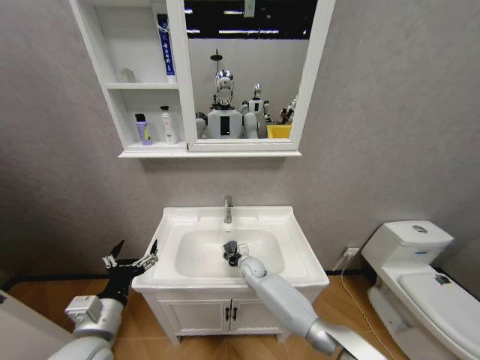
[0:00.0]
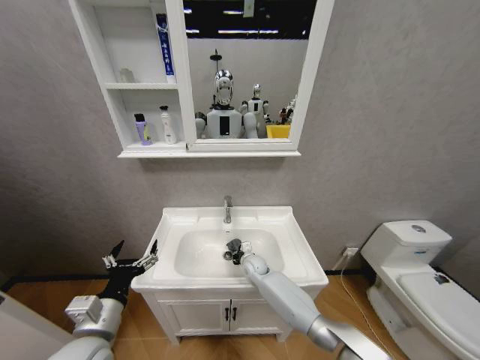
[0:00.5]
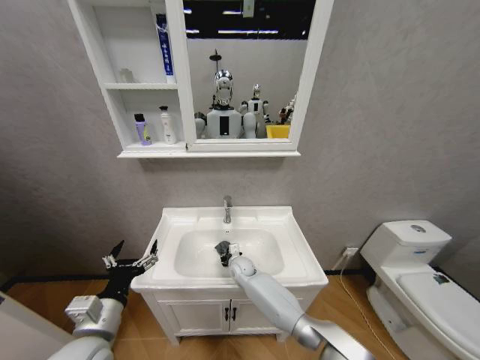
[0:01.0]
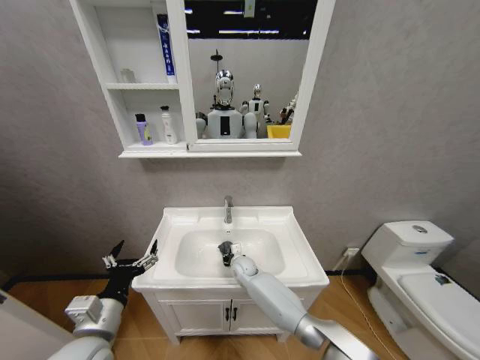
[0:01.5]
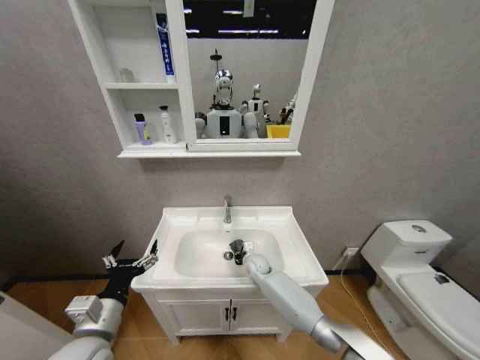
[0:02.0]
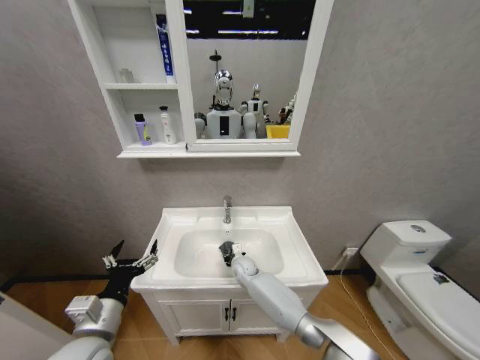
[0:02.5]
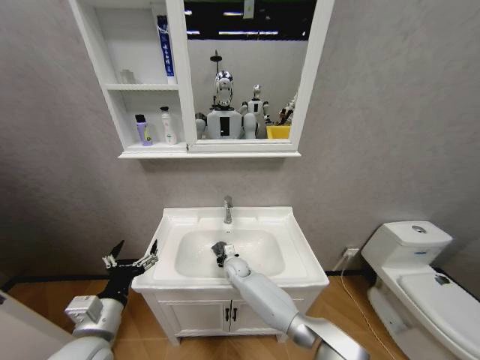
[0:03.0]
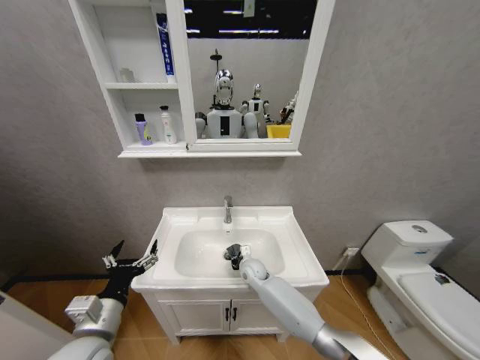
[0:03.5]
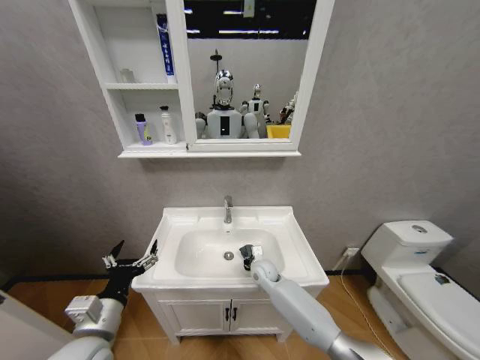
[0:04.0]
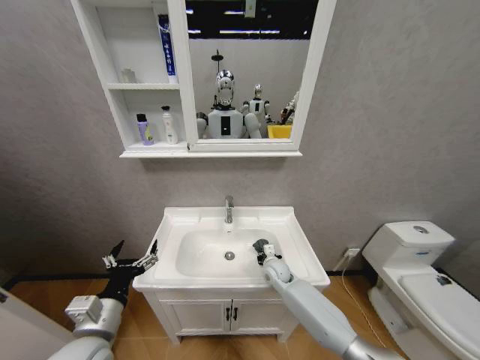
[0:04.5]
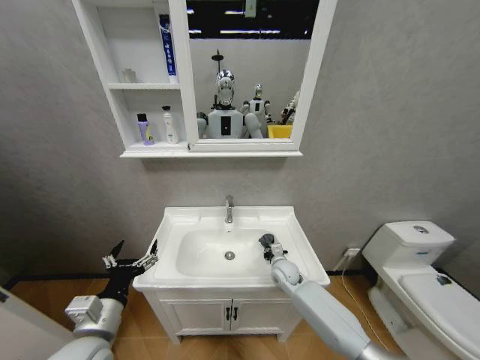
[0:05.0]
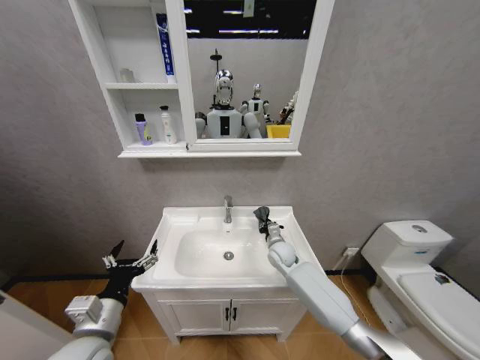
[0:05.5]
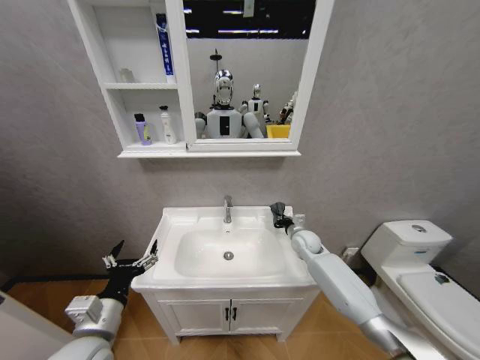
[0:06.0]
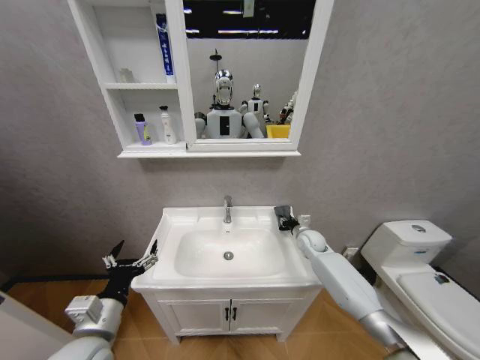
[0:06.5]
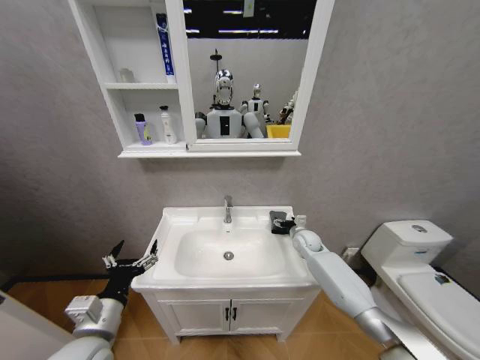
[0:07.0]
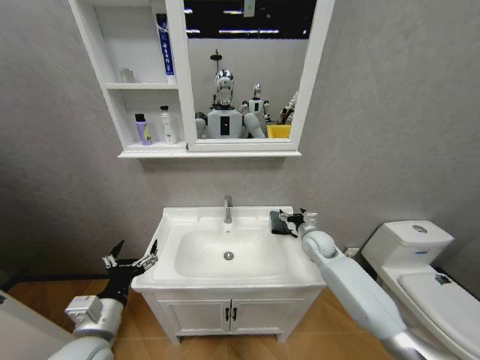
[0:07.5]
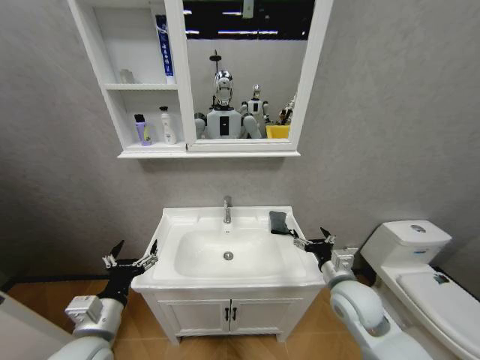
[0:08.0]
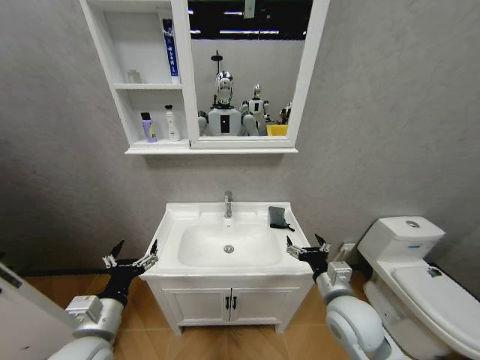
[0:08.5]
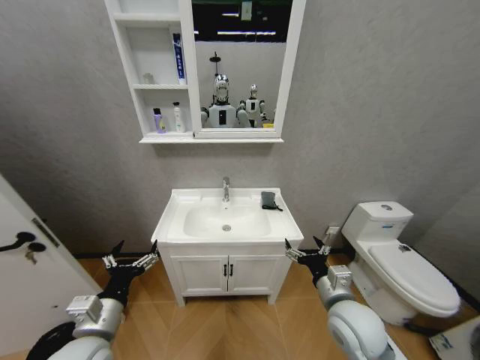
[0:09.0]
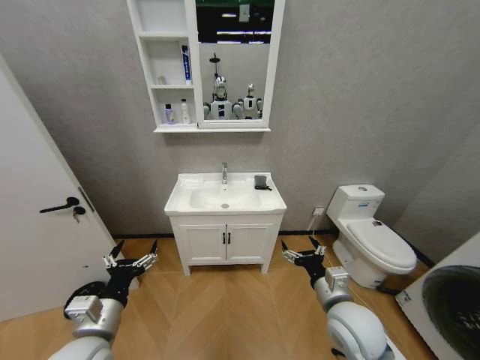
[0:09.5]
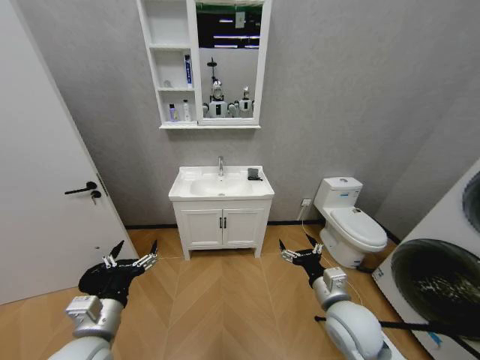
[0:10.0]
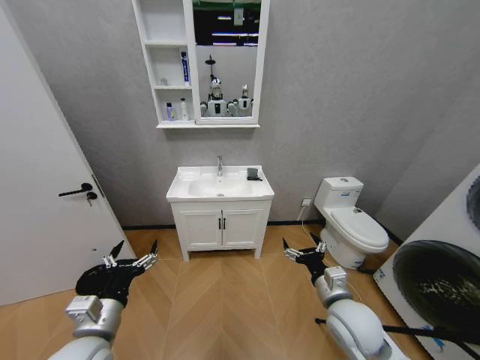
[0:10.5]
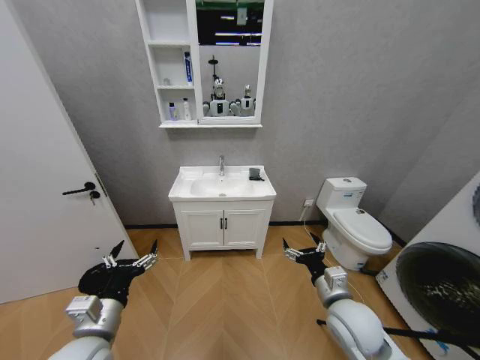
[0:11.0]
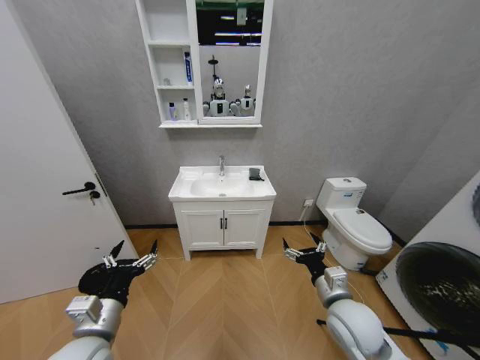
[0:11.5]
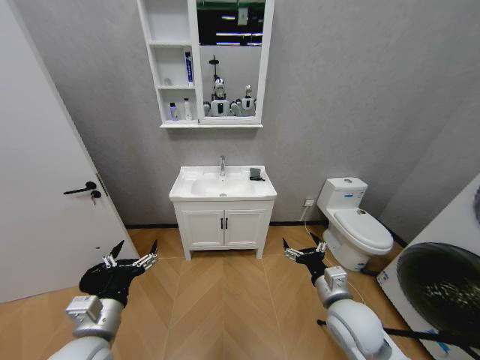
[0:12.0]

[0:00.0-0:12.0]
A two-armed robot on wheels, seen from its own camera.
Task of the whole recording: Move facial cleanser and shampoo from washbasin to cabinet, then wipe washbasin with towel.
0:00.0 to 0:02.0: The grippers make only small movements.
0:02.0 to 0:04.0: The right gripper travels to the left and back again, some 10 cm each way.
0:04.0 to 0:06.0: The right gripper is displaced to the right, upward and forward by approximately 20 cm.
0:06.0 to 0:08.0: The right gripper goes roughly 20 cm backward, and opens up.
0:08.0 to 0:10.0: The right gripper ends up some 5 cm from where it was.
0:10.0 to 0:12.0: Neither gripper changes place.

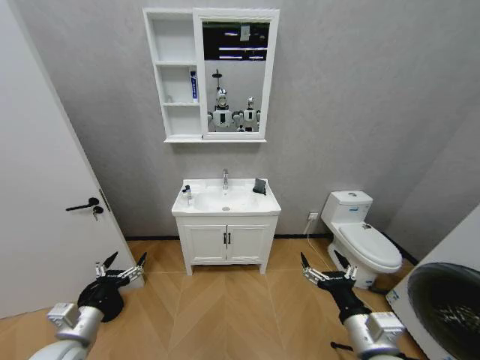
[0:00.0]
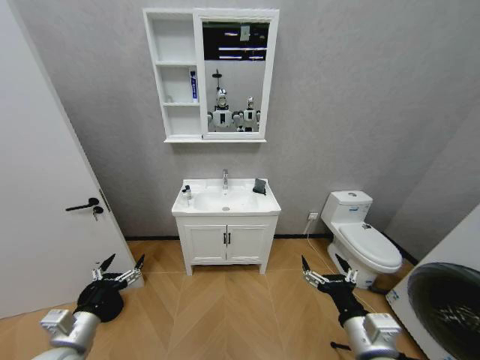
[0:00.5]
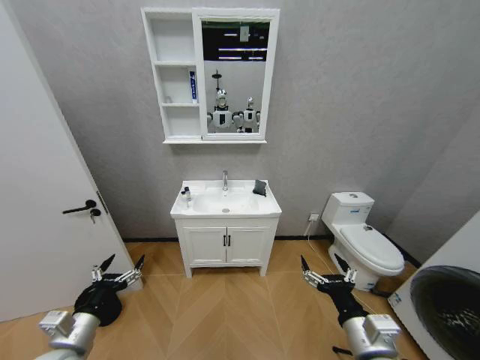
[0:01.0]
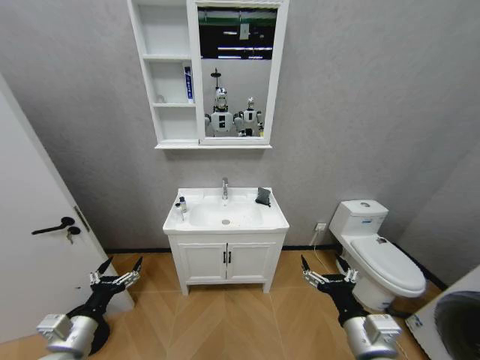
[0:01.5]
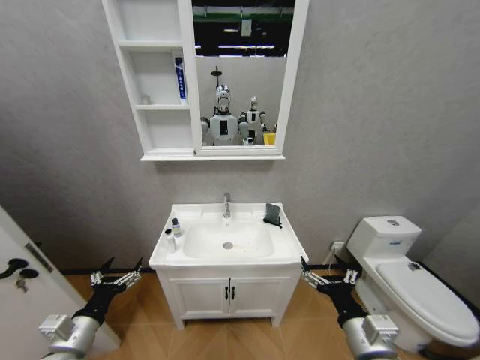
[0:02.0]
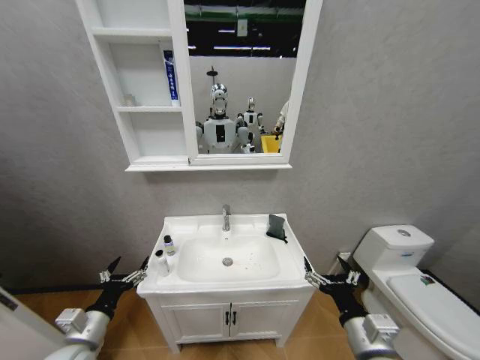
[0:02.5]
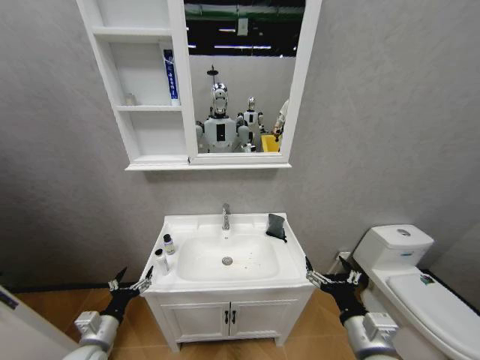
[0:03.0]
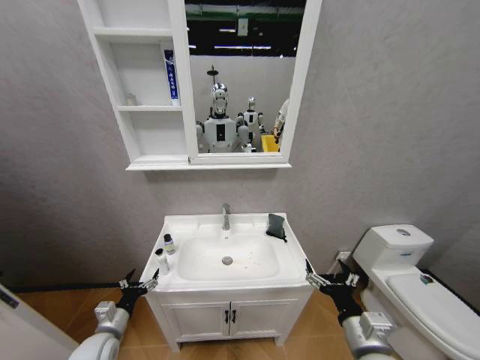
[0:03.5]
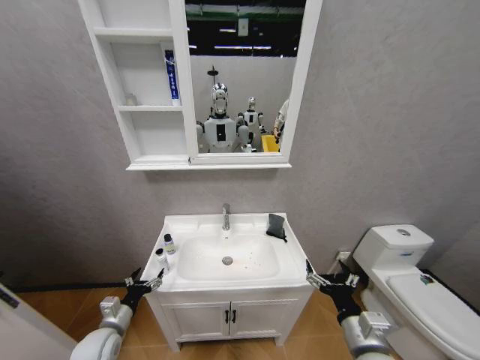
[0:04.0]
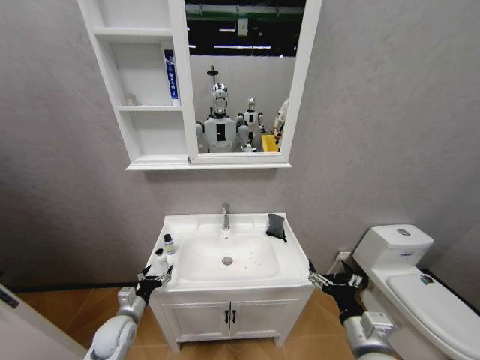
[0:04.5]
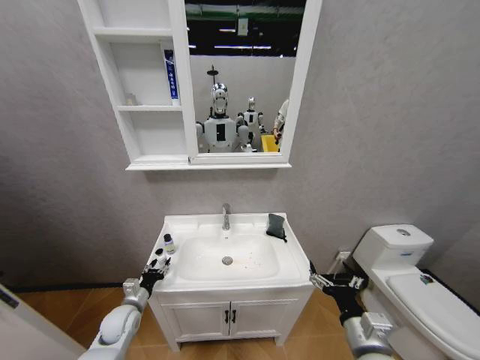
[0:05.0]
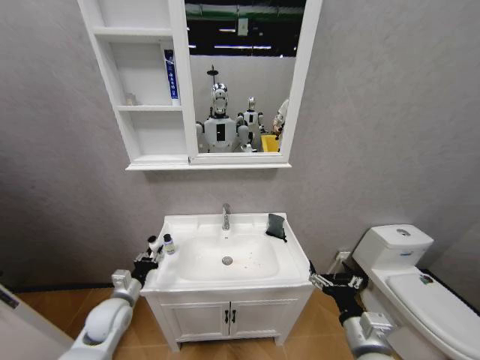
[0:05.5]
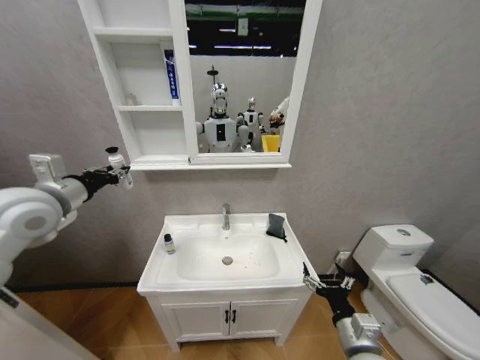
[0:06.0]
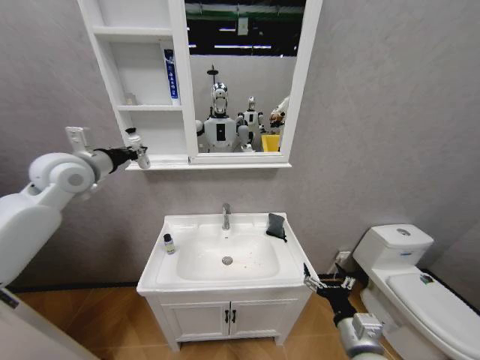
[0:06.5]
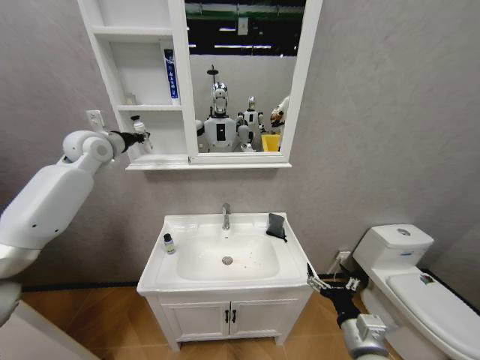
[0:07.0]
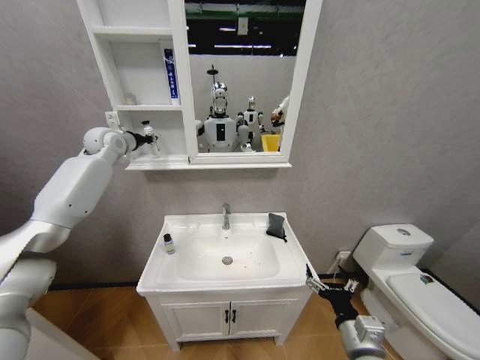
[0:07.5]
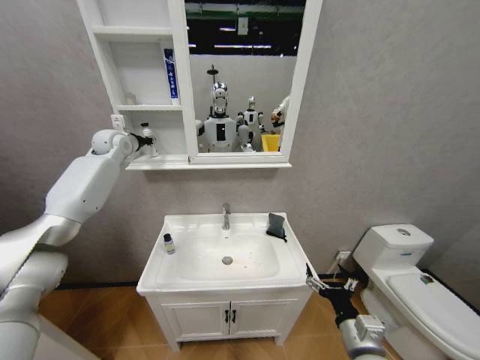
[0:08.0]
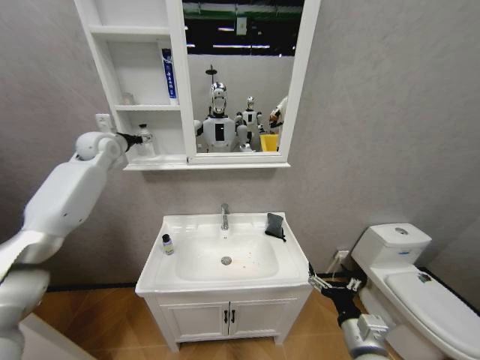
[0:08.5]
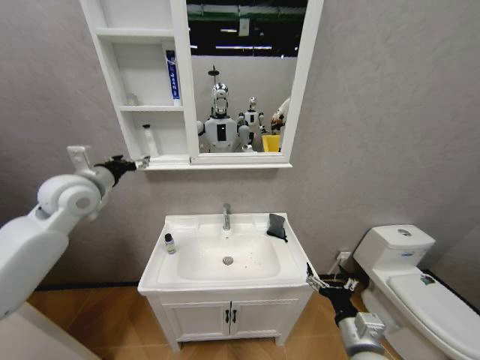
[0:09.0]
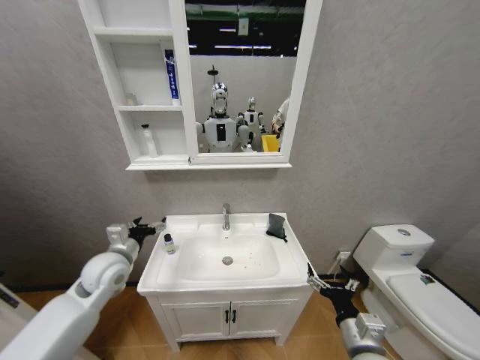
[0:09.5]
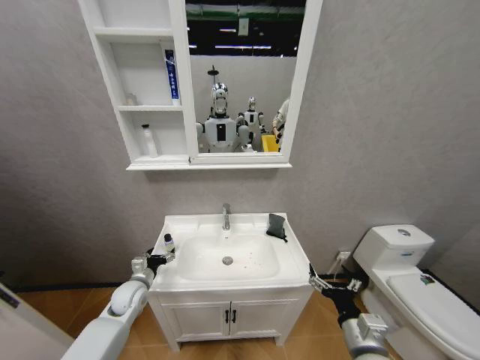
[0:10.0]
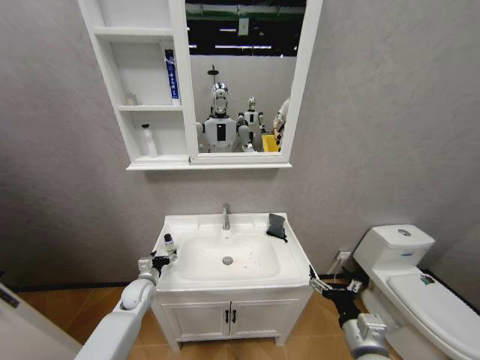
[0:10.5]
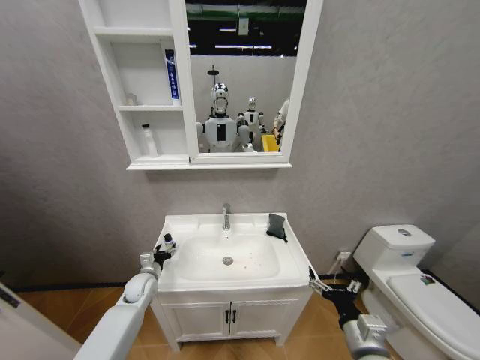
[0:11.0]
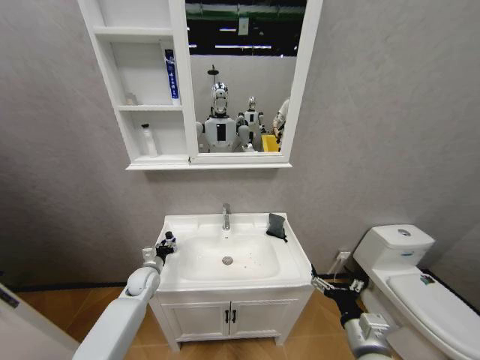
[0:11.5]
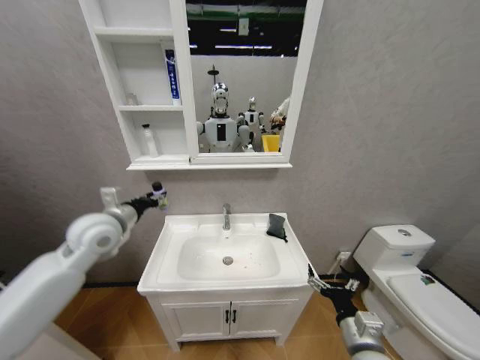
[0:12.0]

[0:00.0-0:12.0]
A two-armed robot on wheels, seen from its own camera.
Task of the whole recording: Move facial cleanser and shampoo from washbasin to cabinet, then wipe washbasin with towel.
0:02.0 to 0:04.0: The left gripper goes about 10 cm downward and forward.
0:04.0 to 0:06.0: The left gripper is displaced upward by roughly 35 cm, and closes up.
0:06.0 to 0:08.0: The left gripper heads forward, covering some 30 cm.
0:08.0 to 0:10.0: The left gripper goes approximately 50 cm downward and backward, and opens up.
0:10.0 to 0:12.0: The left gripper shifts approximately 25 cm upward, and closes.

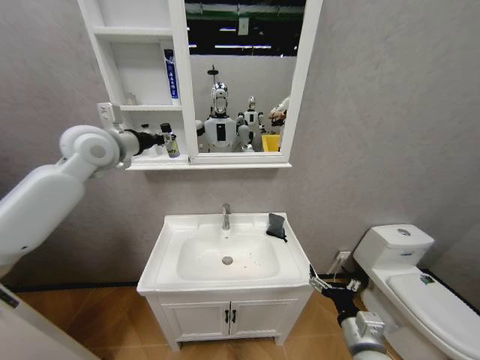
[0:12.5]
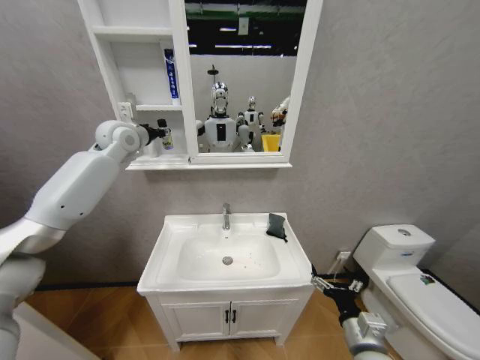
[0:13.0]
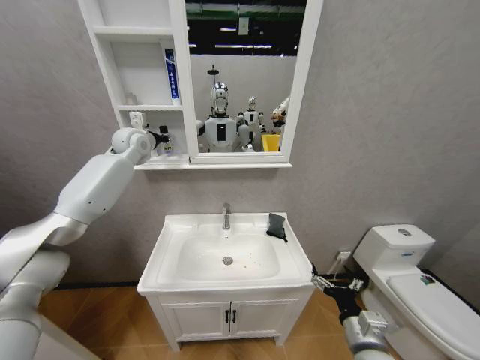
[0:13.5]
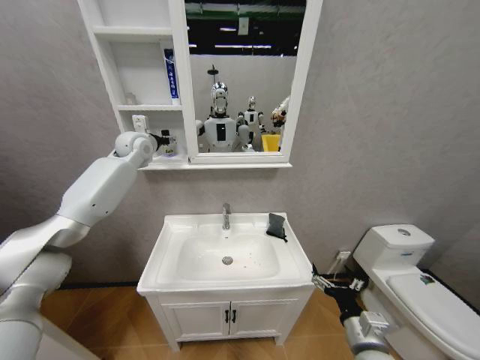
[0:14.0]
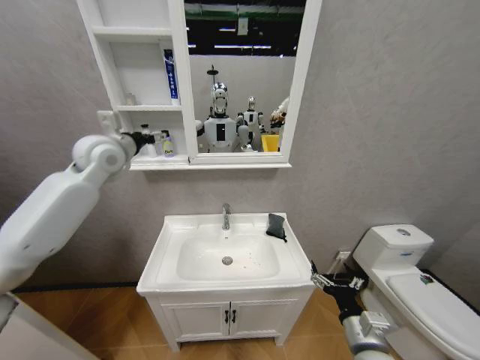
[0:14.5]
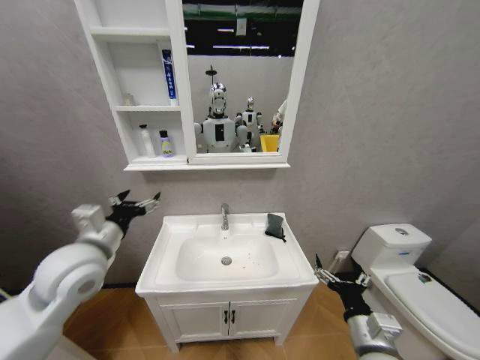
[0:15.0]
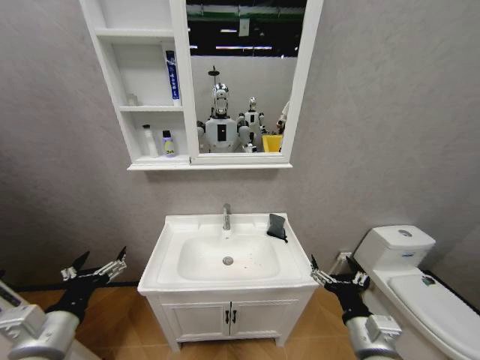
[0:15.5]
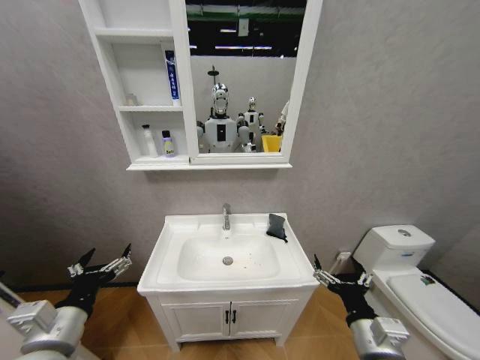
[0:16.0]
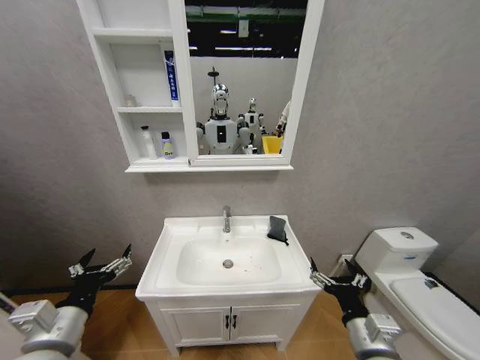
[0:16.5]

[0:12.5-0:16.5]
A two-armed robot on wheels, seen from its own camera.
Task of the whole recording: Move facial cleanser and shampoo from washbasin to cabinet, then wipe washbasin with towel.
0:12.5 to 0:14.5: The left gripper goes forward and returns, some 15 cm each way, and opens its fingers.
0:14.5 to 0:16.5: The left gripper is displaced backward and downward by approximately 35 cm.
